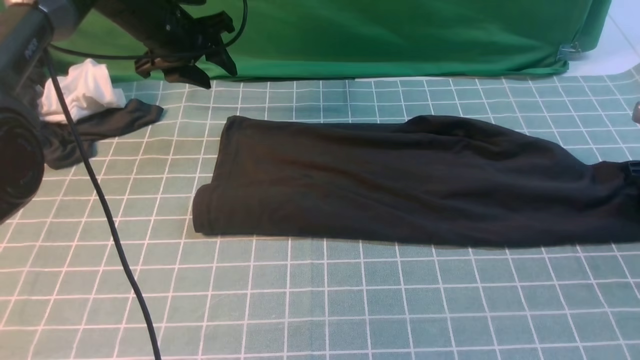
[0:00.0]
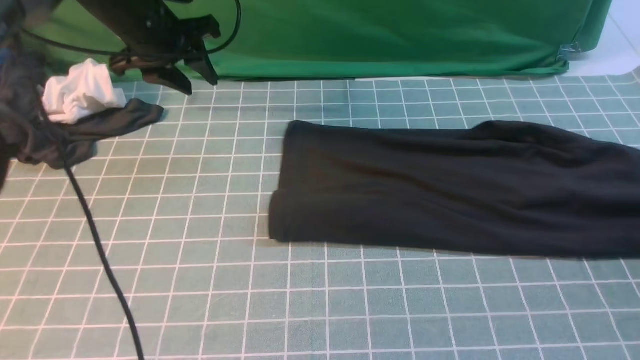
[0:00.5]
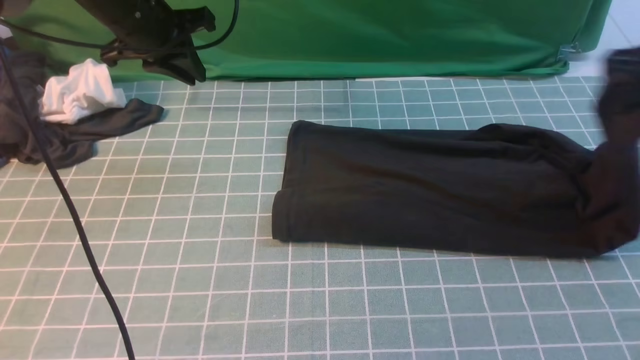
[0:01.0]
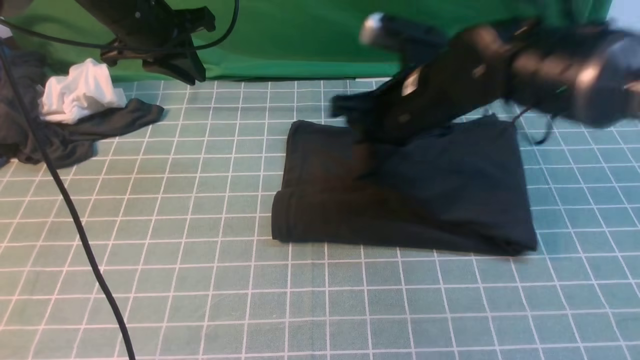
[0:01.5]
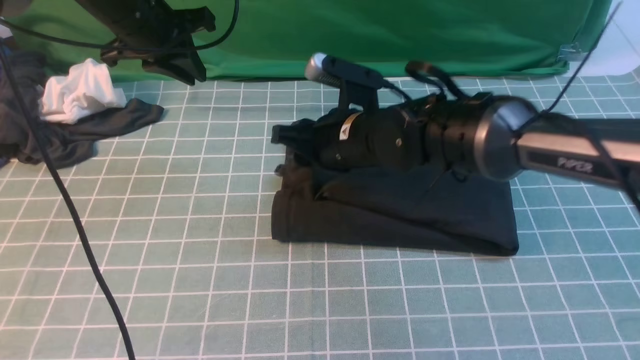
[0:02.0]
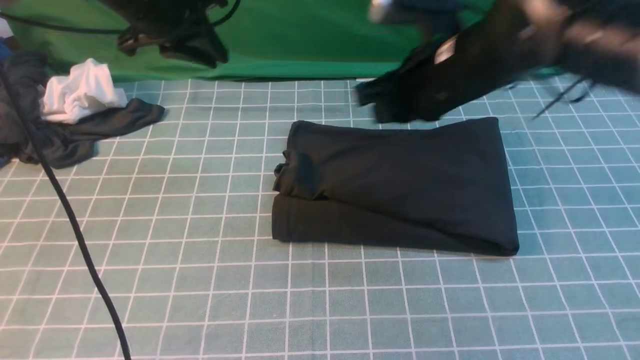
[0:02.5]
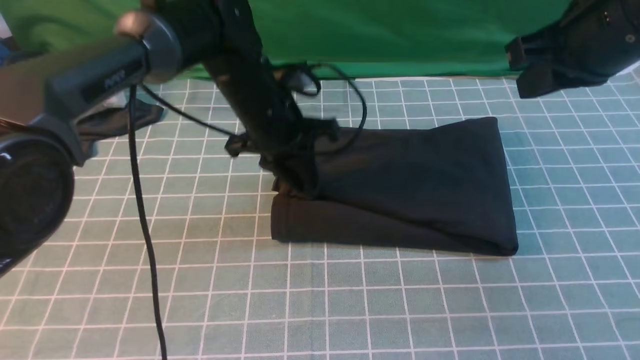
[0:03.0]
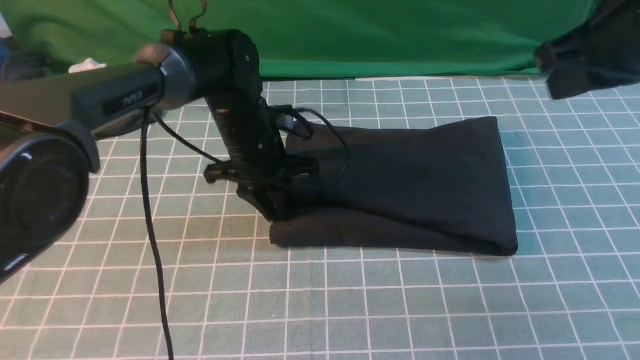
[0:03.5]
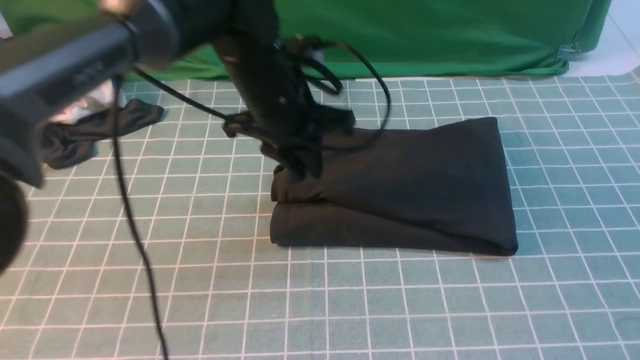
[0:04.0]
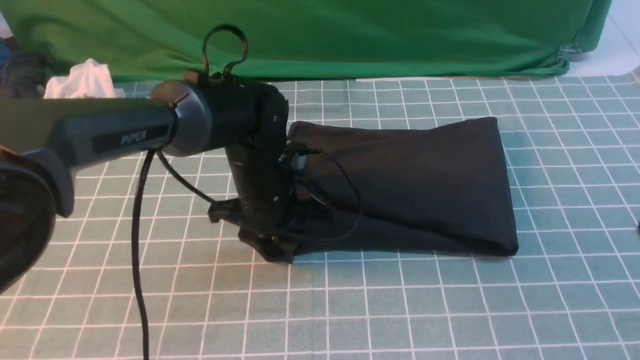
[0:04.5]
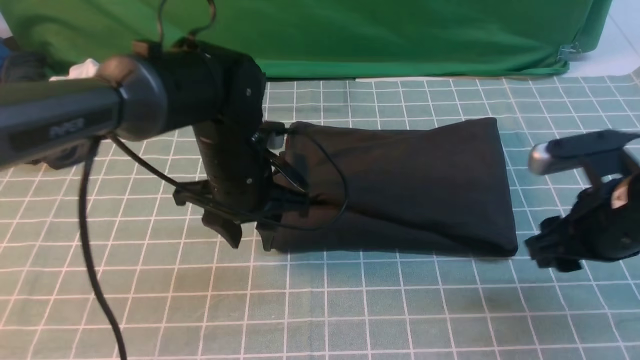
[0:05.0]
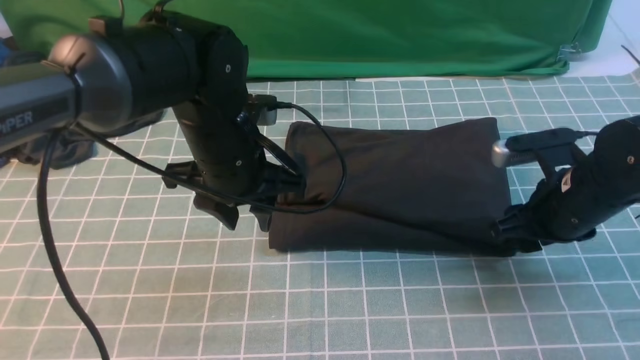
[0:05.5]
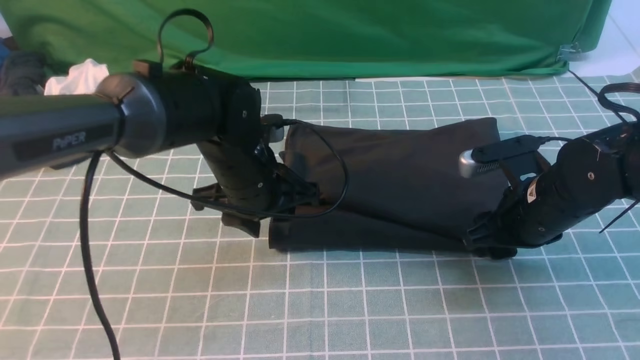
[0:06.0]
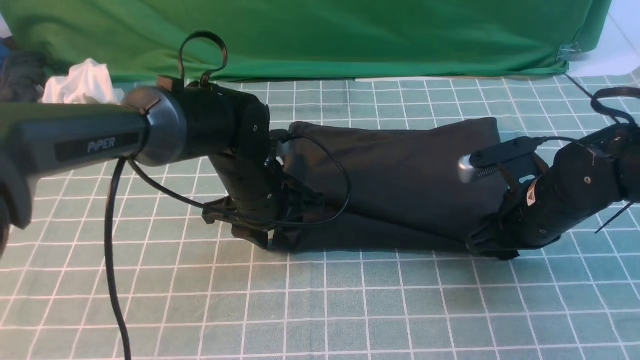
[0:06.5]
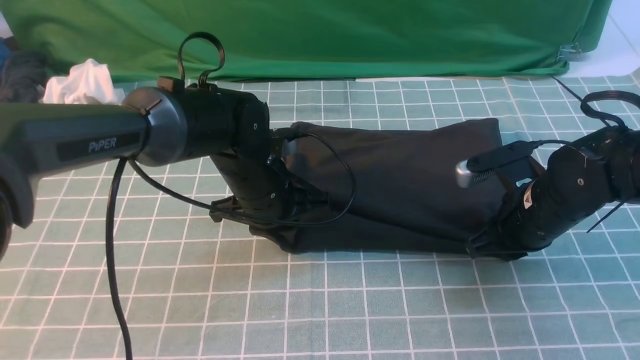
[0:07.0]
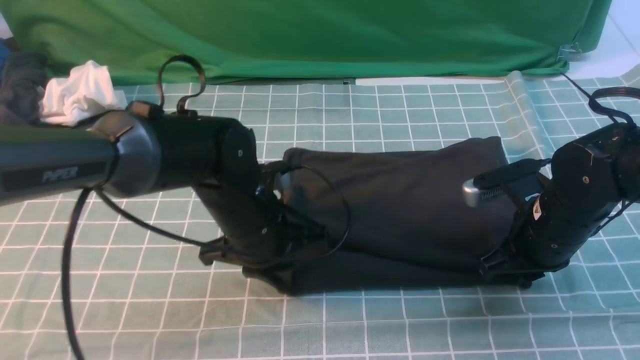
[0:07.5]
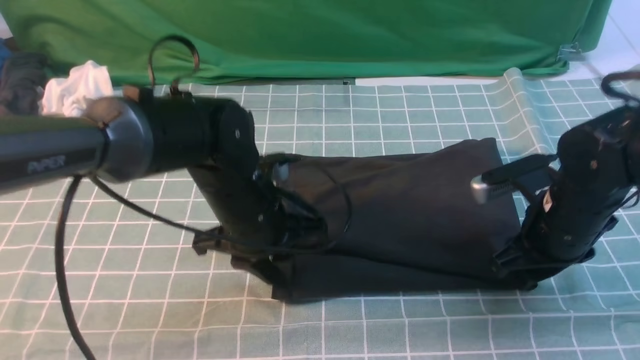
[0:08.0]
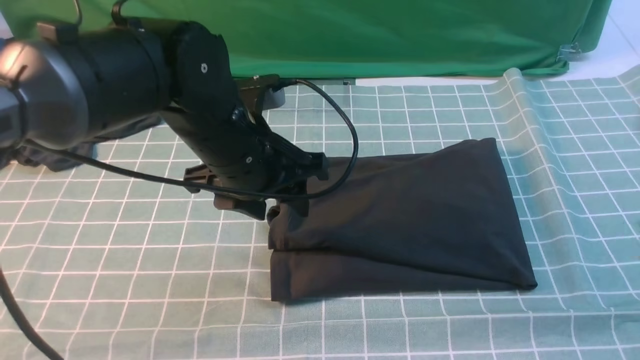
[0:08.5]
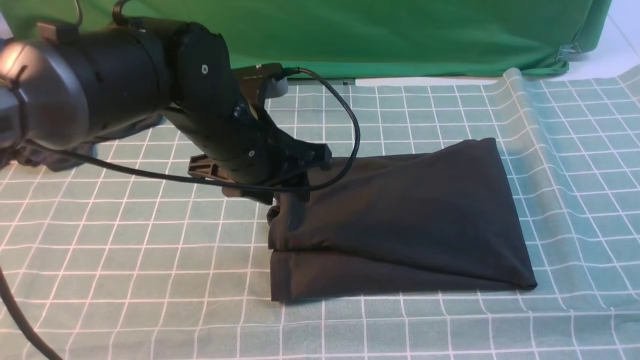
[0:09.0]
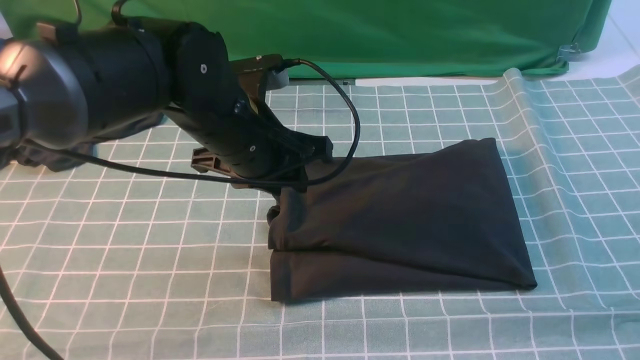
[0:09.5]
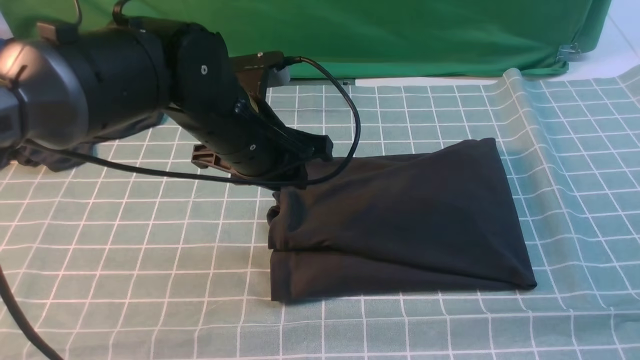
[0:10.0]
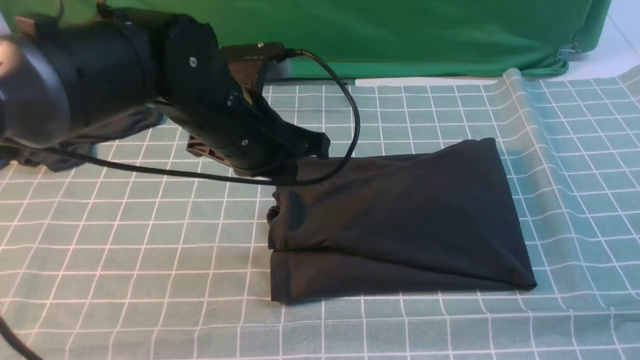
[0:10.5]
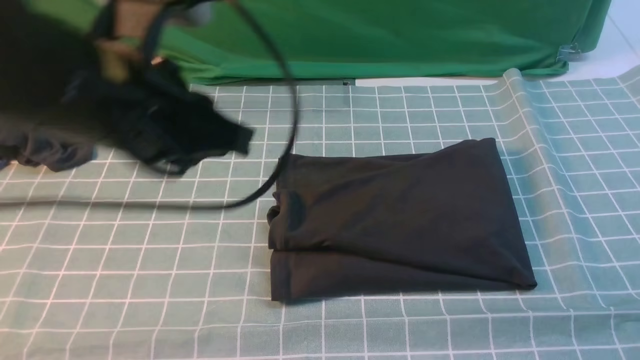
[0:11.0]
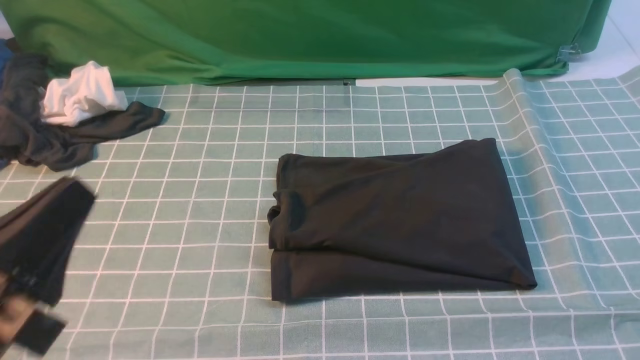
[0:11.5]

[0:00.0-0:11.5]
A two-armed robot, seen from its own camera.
Step, 0:00.5 to 0:02.0: use the right arm to drag the right edge of the fabric to the left and folds it over the left edge.
0:00.0 to 0:02.0: The left gripper shifts by roughly 5 cm, and closes. The right gripper heads to the left, covering about 40 cm, and opens.
0:02.0 to 0:04.0: The left gripper goes some 20 cm to the right and backward, while the right gripper is displaced to the right, upward and backward by some 40 cm, and closes.
0:04.0 to 0:06.0: The right gripper goes approximately 30 cm downward and forward, and opens its fingers; the left gripper goes up and down, approximately 10 cm each way, reversing 2 times, and opens up.
0:06.0 to 0:07.5: The left gripper closes up, while the right gripper closes up.
0:07.5 to 0:09.5: The right gripper is displaced backward and upward by about 25 cm; the left gripper travels upward by roughly 10 cm, and opens.
0:09.5 to 0:11.5: The right gripper is displaced downward by about 10 cm. The left gripper goes approximately 25 cm backward and to the left, and closes up.

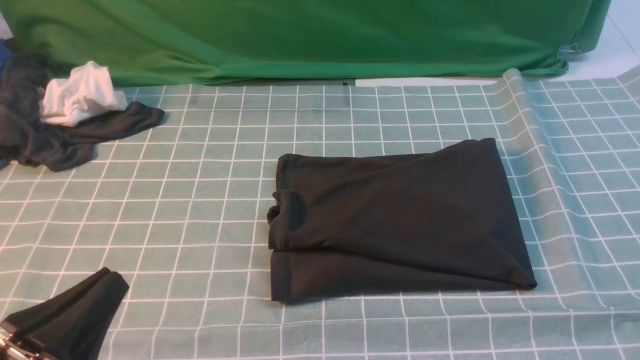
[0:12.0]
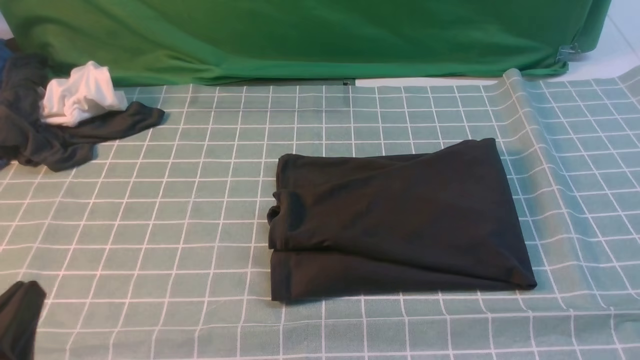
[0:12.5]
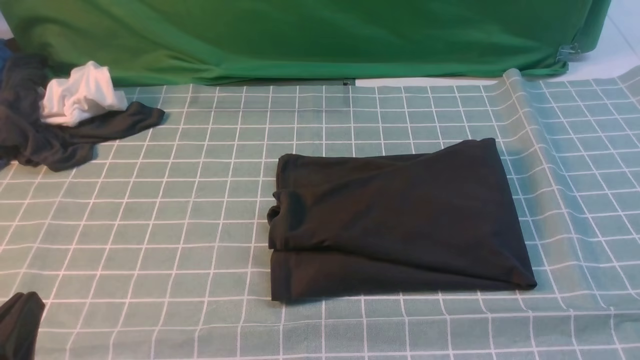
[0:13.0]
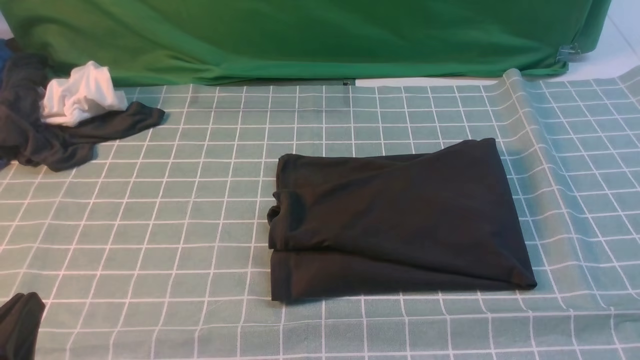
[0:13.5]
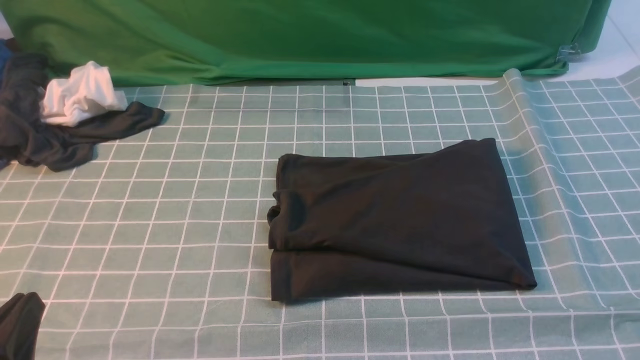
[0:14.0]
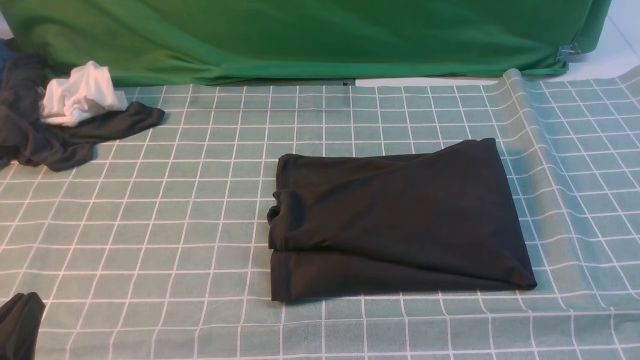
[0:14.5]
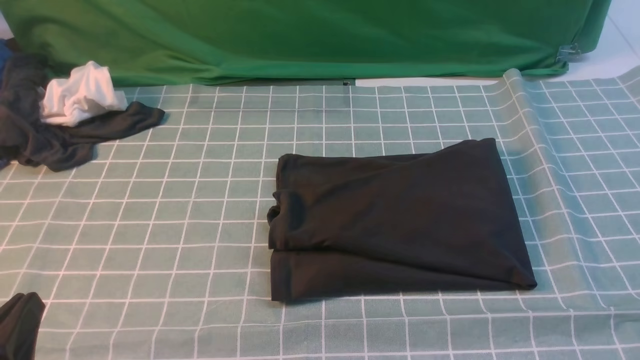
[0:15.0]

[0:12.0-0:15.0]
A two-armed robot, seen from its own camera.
0:13.5 to 0:15.0: Both grippers stay about where they are.
